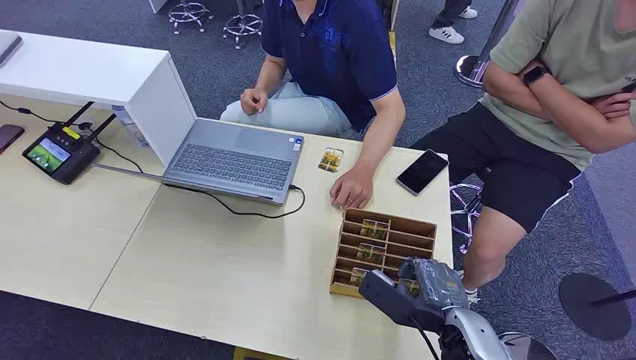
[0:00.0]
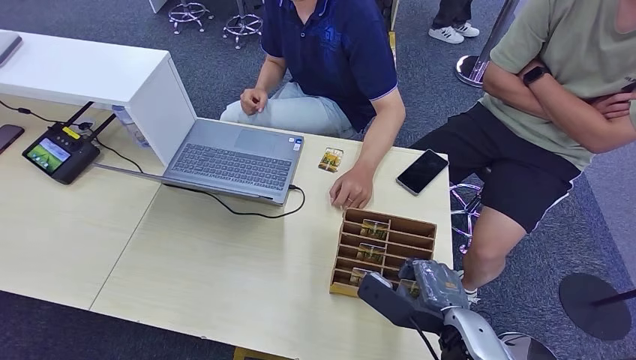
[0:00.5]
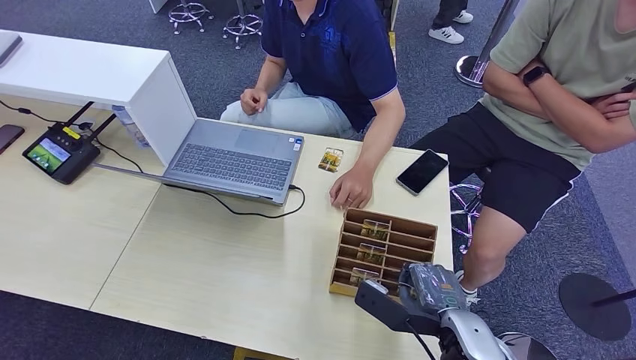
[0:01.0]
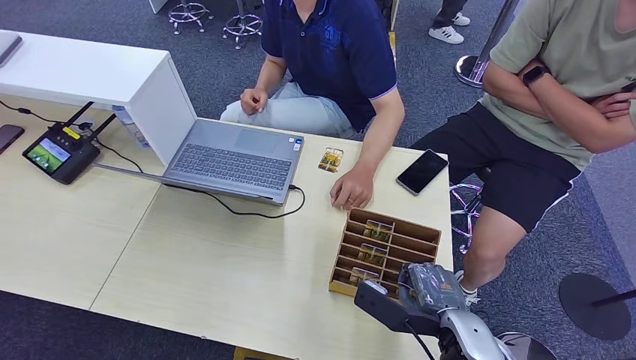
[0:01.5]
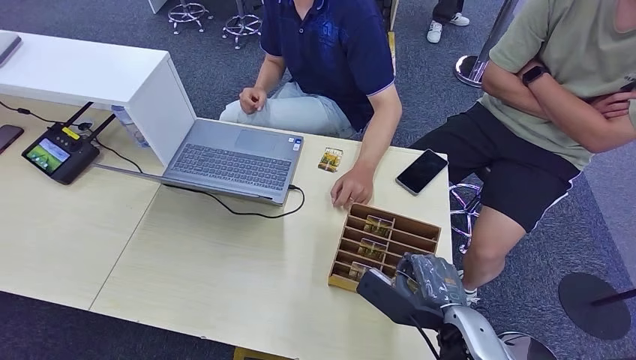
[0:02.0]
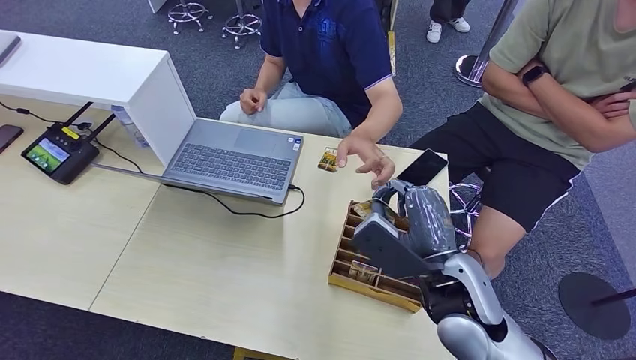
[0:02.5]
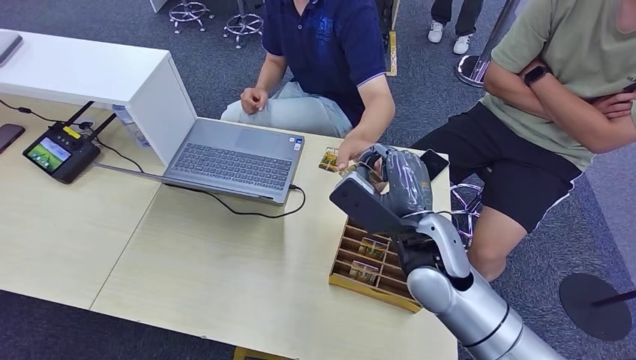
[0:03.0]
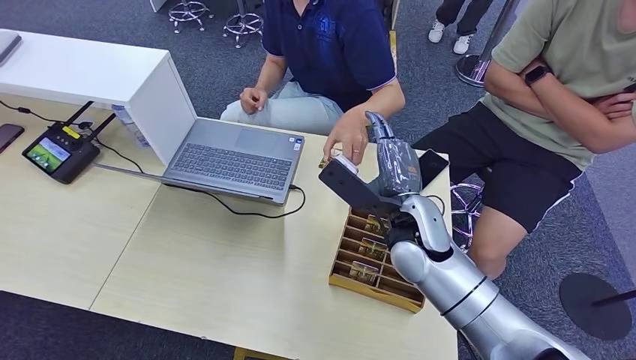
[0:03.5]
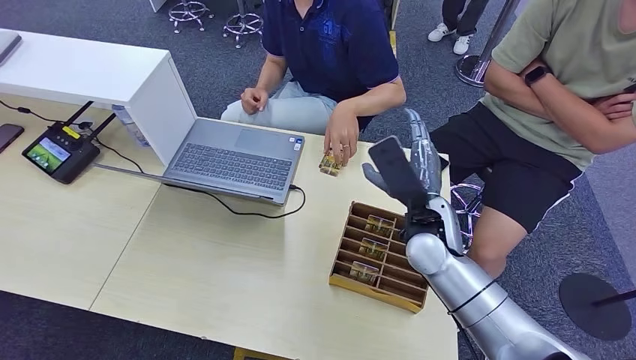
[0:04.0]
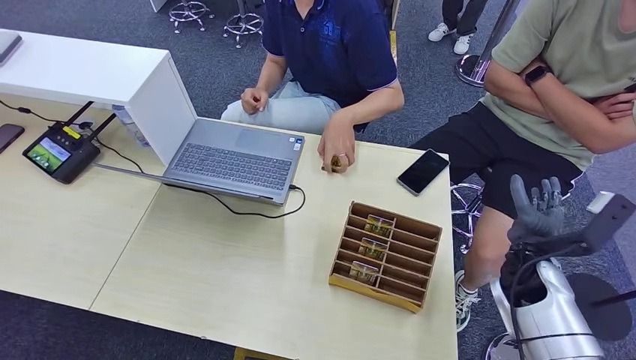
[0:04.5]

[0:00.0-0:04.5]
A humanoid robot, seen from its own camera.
Step, 0:00.0 to 0:02.5: Pick up the room card from the card holder.
Step, 0:03.0 to 0:04.5: Hand the room card to the target.
0:02.0 to 0:04.5: The right hand goes approximately 20 cm forward and to the right.
